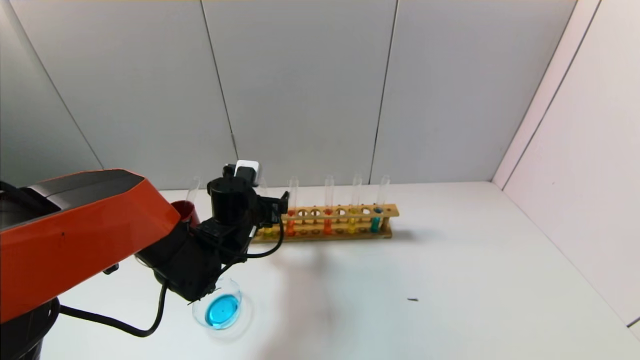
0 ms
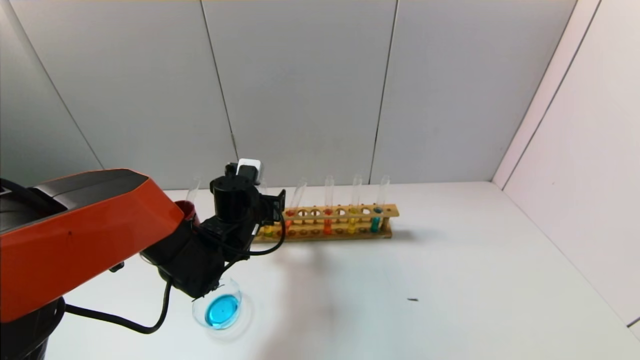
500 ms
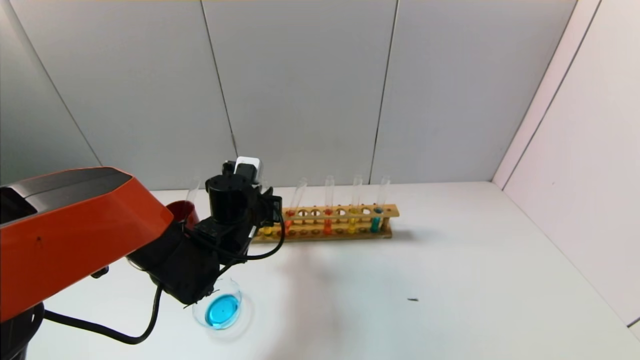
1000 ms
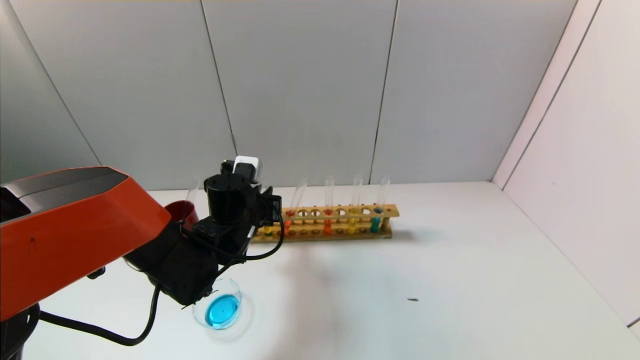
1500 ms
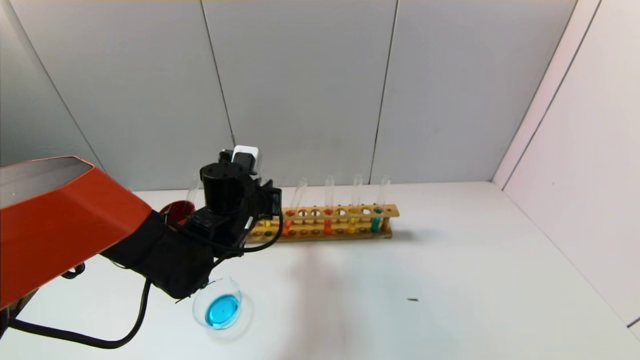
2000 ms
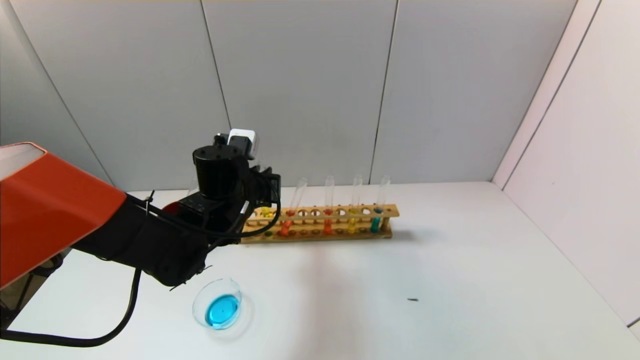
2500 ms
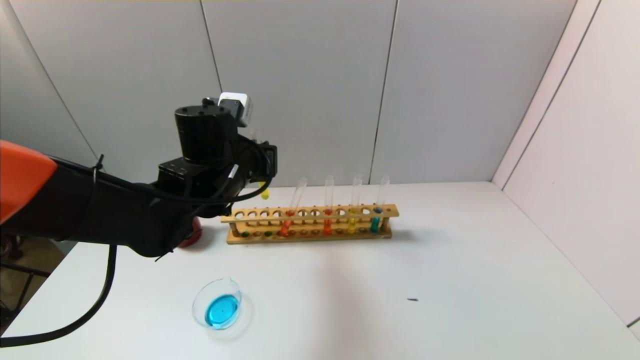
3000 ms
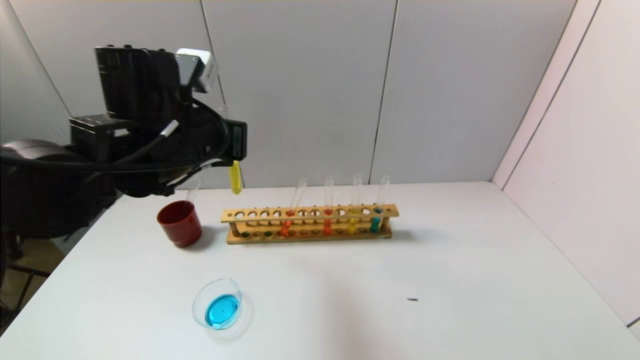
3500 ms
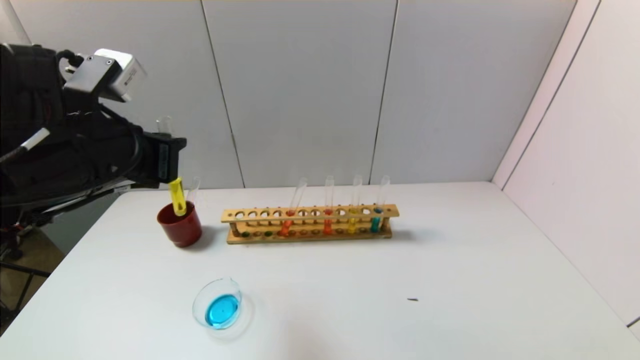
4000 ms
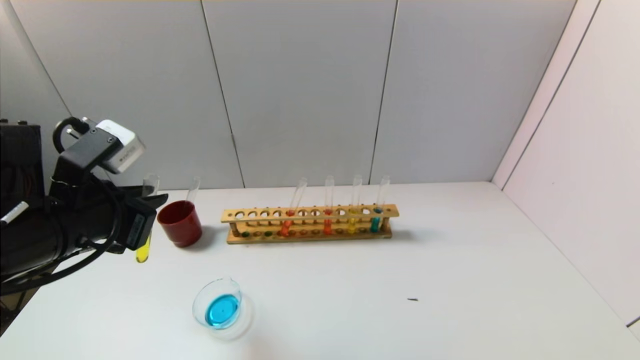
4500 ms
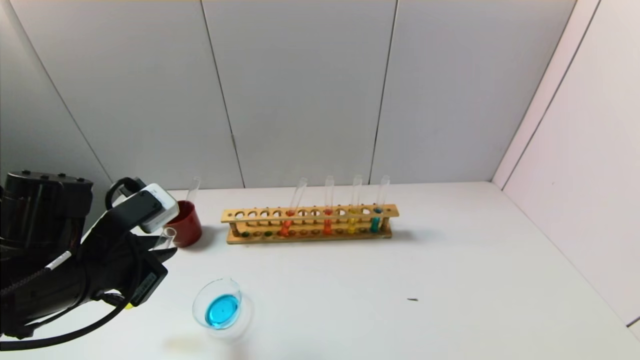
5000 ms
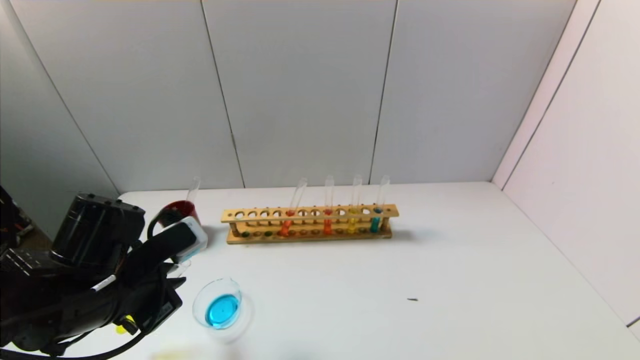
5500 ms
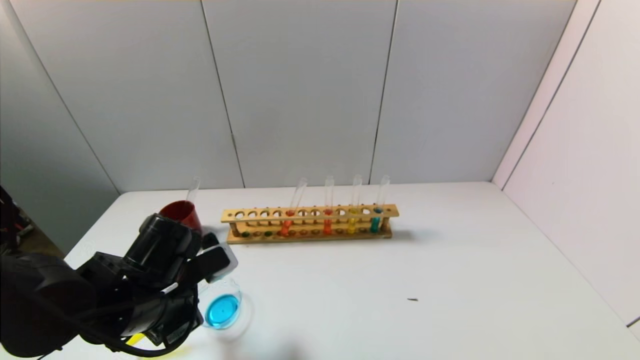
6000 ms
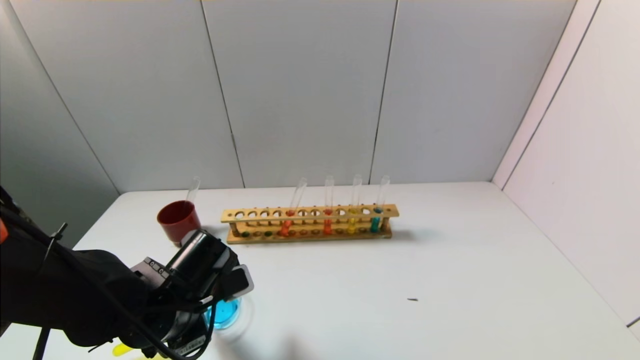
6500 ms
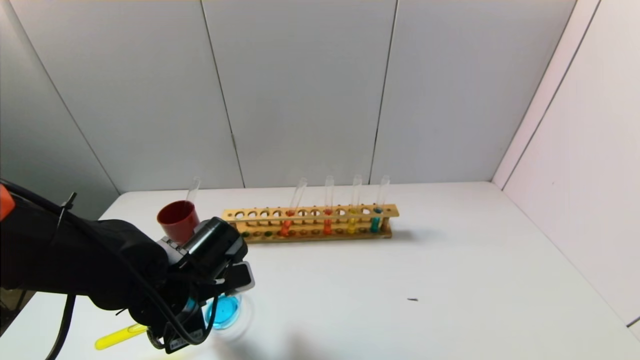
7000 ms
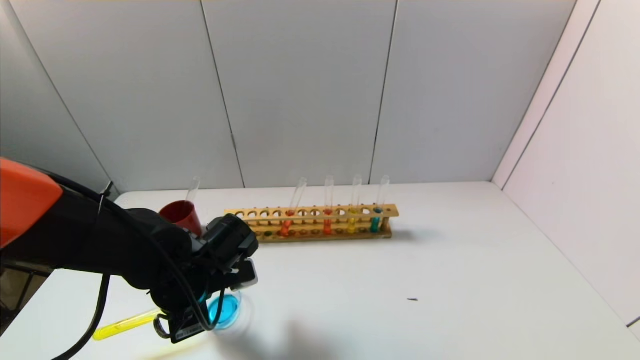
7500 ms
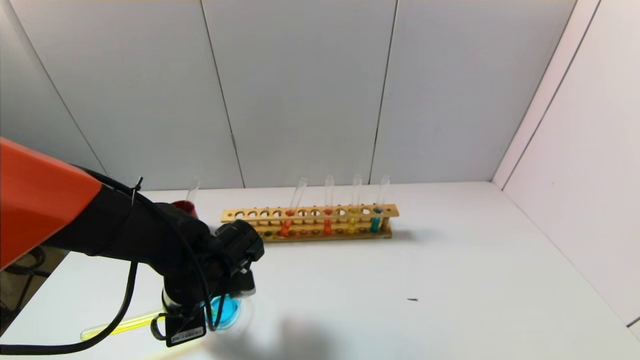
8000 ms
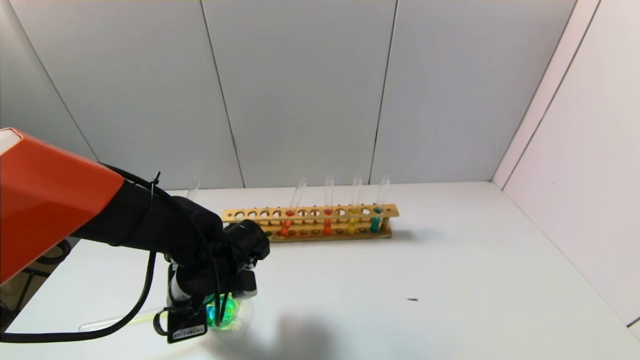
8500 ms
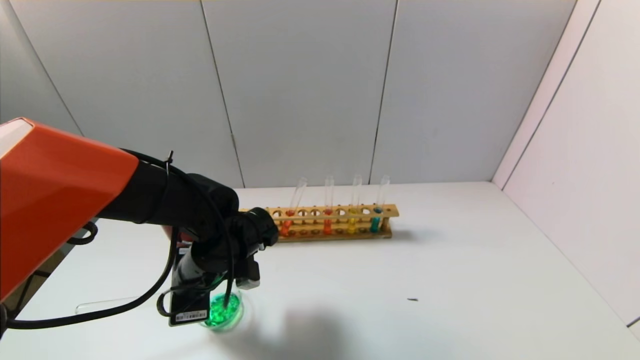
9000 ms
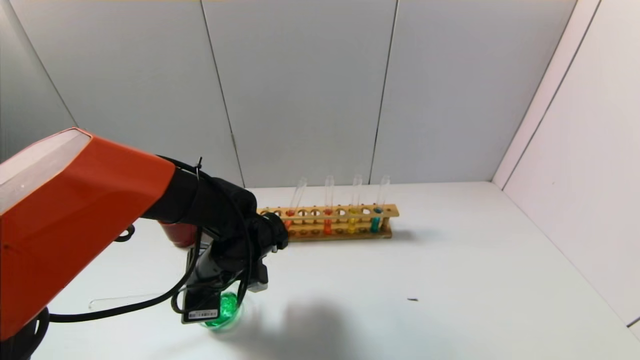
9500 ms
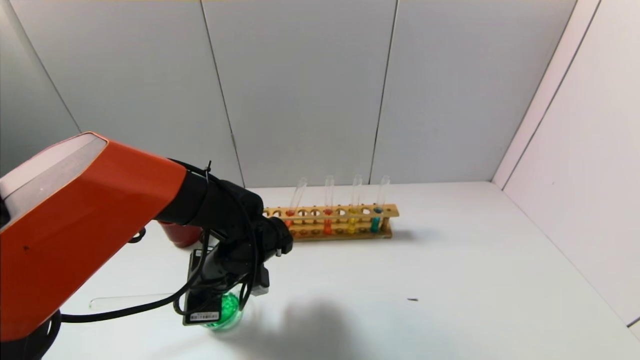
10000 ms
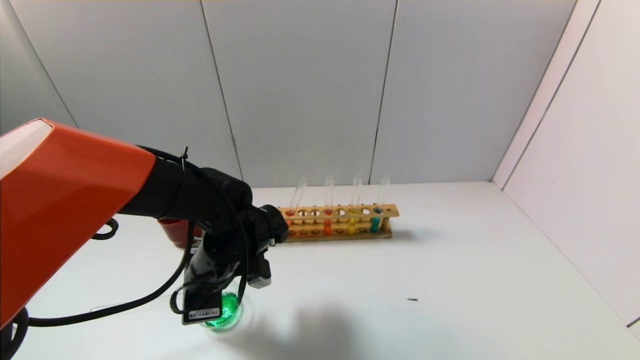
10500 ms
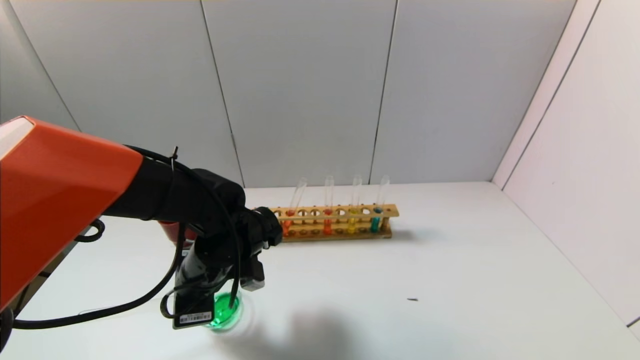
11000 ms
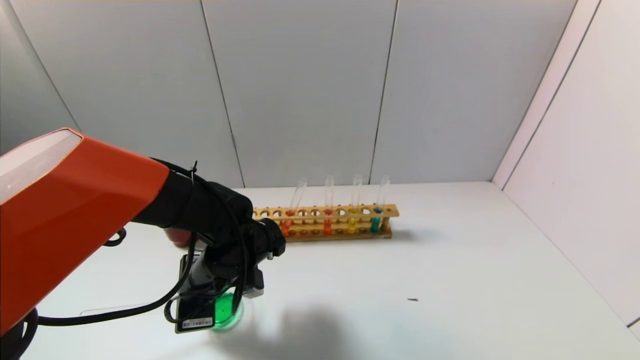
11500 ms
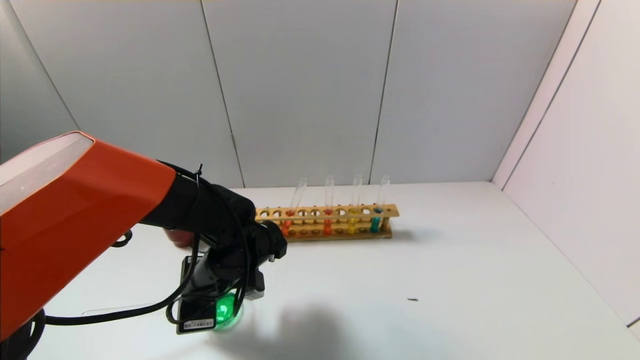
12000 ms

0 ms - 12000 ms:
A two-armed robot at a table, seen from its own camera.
Task of the whole recording: pick up the test tube with yellow pigment and the test tube with blue pigment by grippers and pour them into the beaker.
Step, 1500 ms - 10500 ms: Pour the yellow reagent into the graduated cylinder with the left gripper.
0 ms - 2000 ms: The left gripper closes its fingers.
2000 ms - 4000 ms: The left gripper travels upward, backward and to the left by about 20 cm.
4000 ms - 6000 ms: The left gripper shifts roughly 15 cm downward.
6000 ms - 8000 ms: The left gripper changes place by approximately 5 cm.
8000 ms - 12000 ms: The grippers make only small movements.

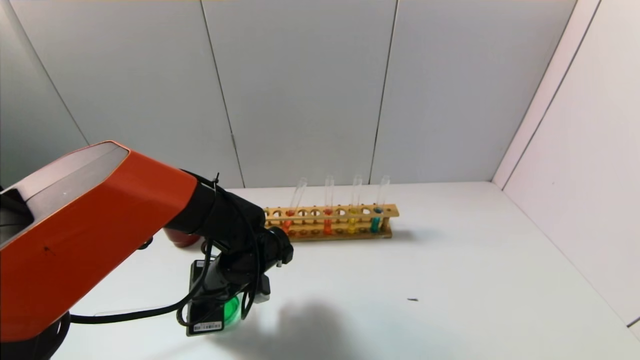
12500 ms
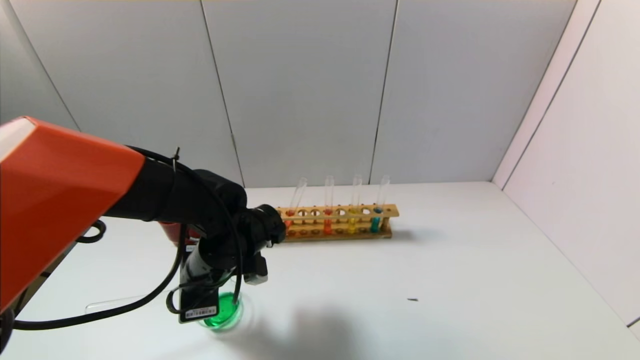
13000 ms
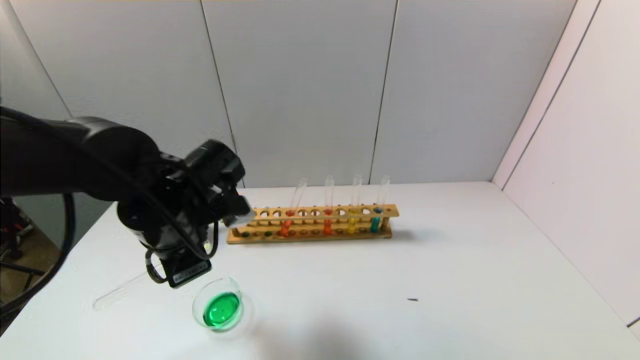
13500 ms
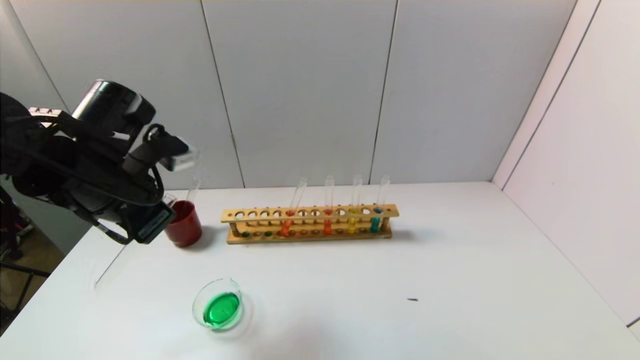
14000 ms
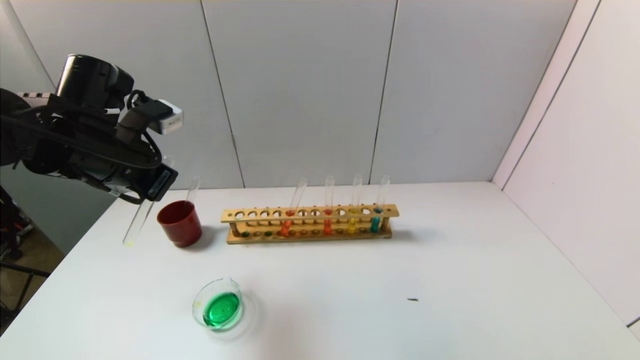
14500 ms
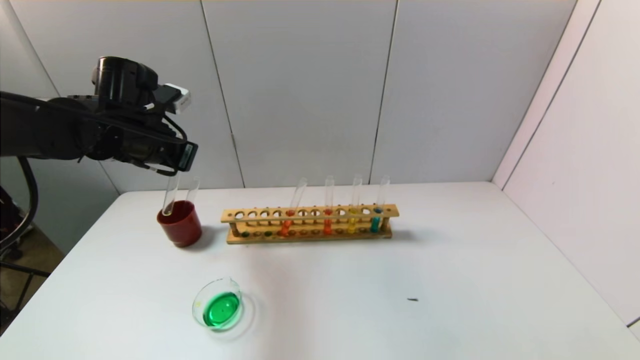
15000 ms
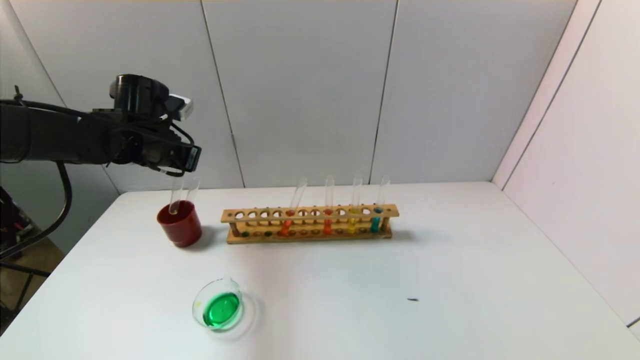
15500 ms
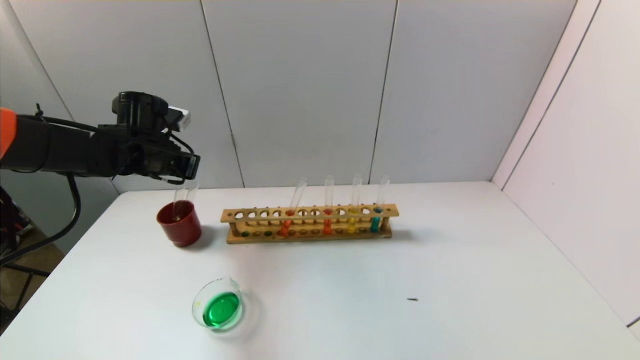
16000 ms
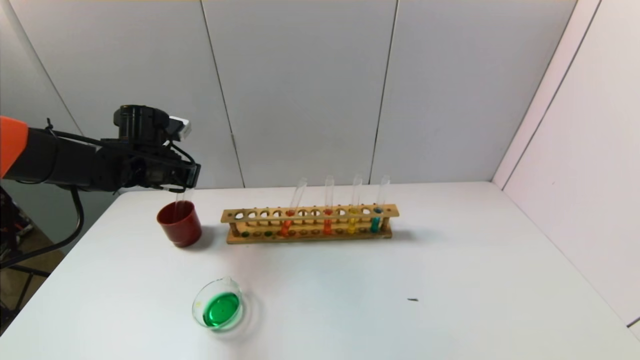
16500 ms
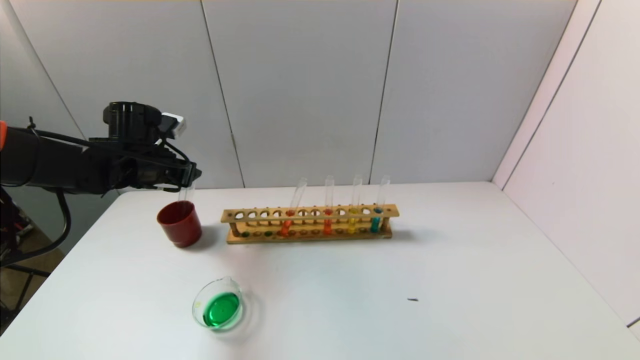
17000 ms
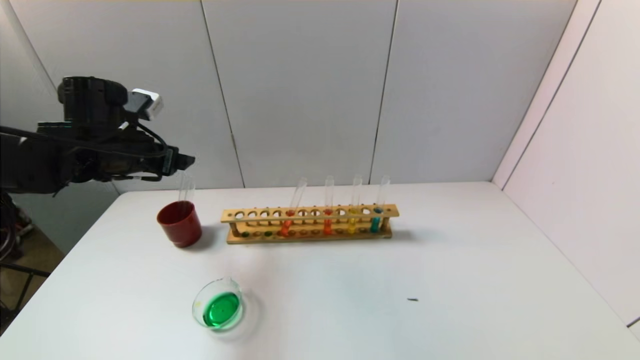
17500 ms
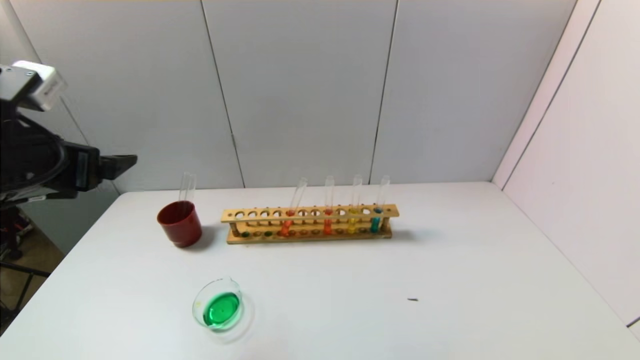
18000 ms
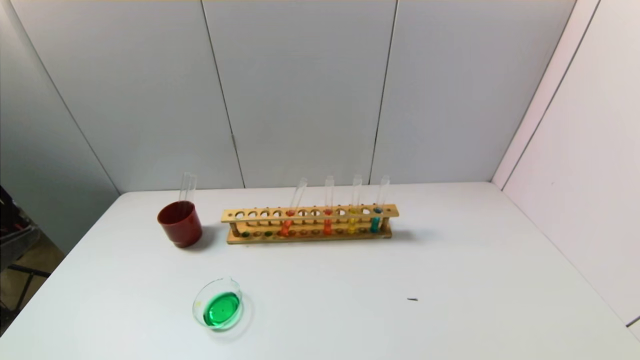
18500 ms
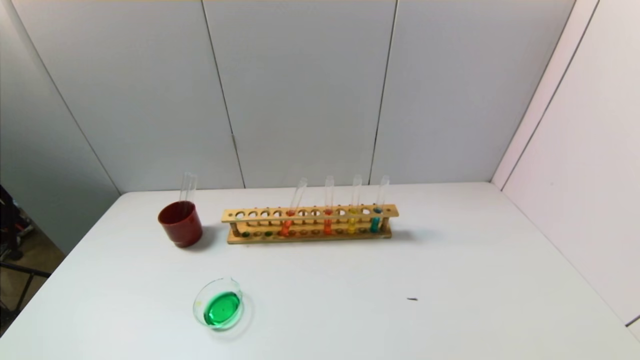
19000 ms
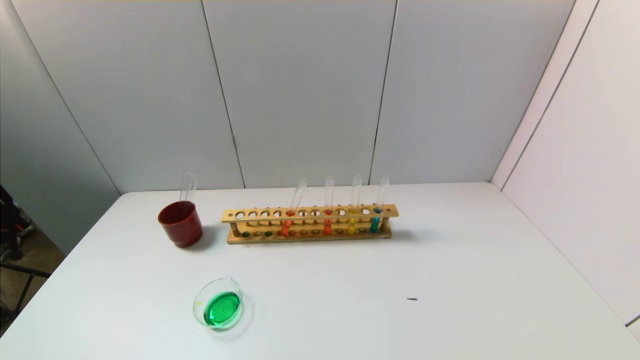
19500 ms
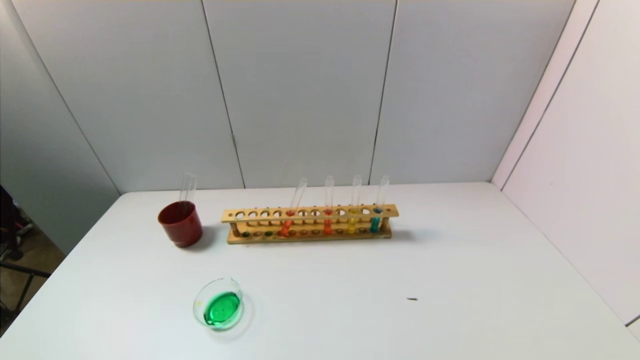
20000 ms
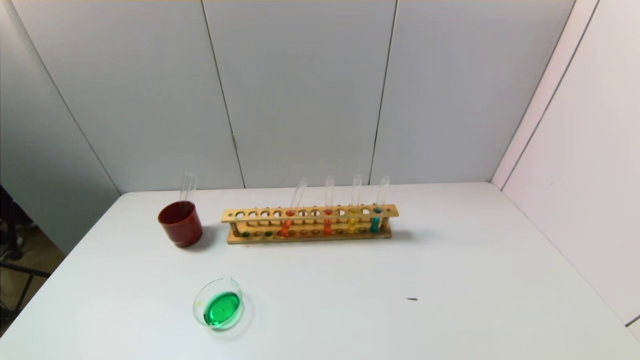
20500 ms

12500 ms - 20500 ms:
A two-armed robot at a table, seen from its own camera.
Task of the whole recording: pick up the test tube with yellow pigment and the test tube with blue pigment by grippers and pour them into the beaker.
Step, 12500 ms - 17000 ms: Place the test tube into the brown cup with the left gripper.
12500 ms - 14500 ms: The left gripper is displaced upward and to the left by about 25 cm.
14500 ms - 16500 ms: The left gripper is displaced forward and downward by about 15 cm.
16500 ms - 18500 ms: The left gripper travels backward by approximately 35 cm, and opens its fingers.
